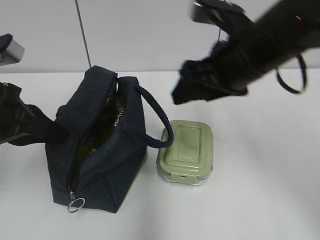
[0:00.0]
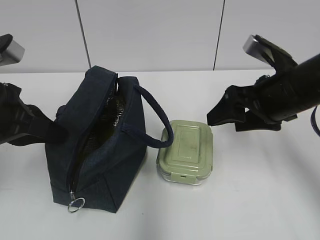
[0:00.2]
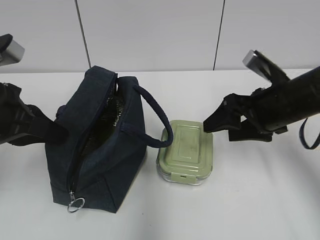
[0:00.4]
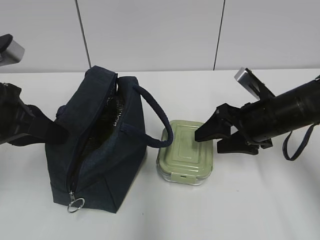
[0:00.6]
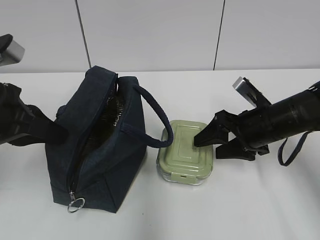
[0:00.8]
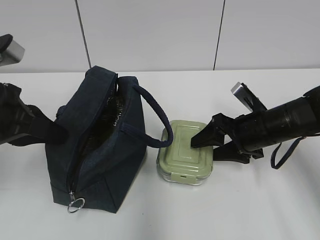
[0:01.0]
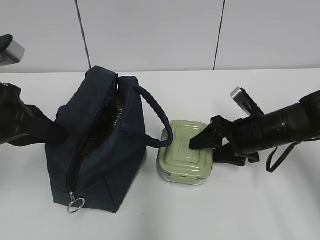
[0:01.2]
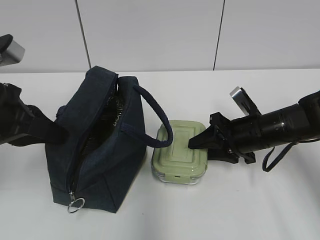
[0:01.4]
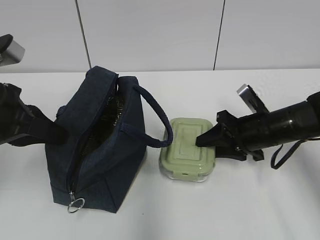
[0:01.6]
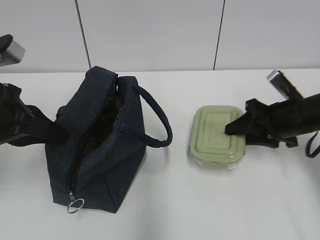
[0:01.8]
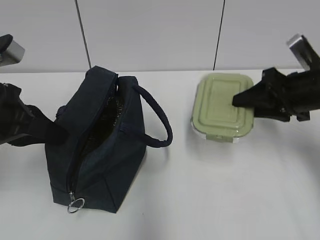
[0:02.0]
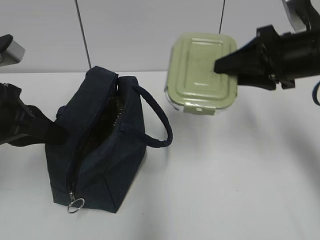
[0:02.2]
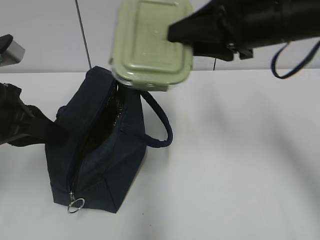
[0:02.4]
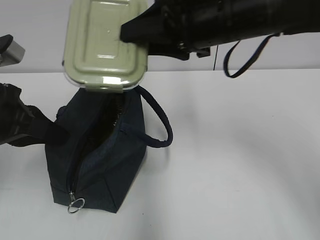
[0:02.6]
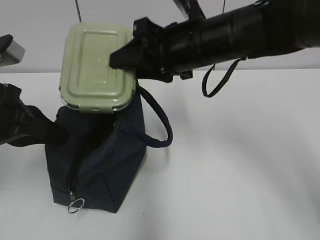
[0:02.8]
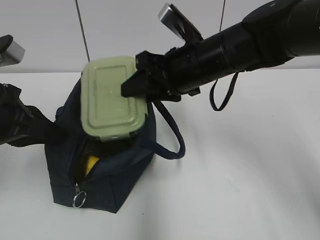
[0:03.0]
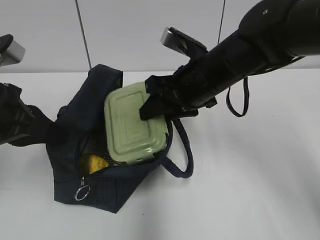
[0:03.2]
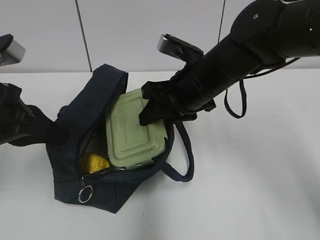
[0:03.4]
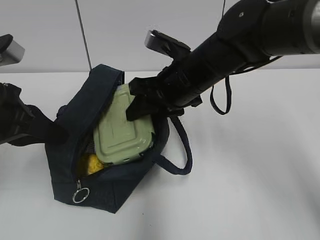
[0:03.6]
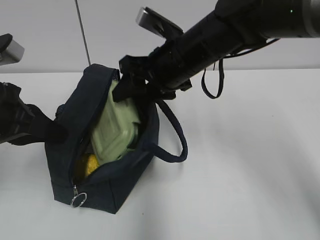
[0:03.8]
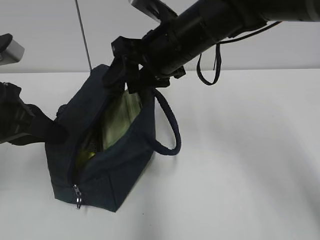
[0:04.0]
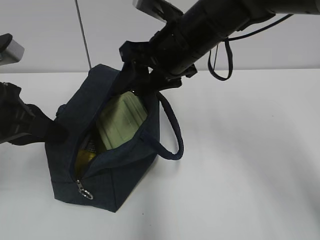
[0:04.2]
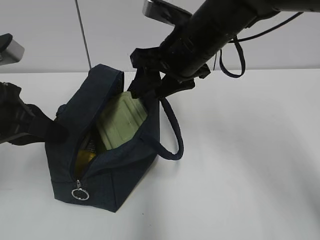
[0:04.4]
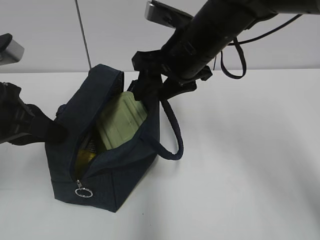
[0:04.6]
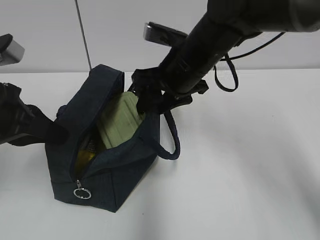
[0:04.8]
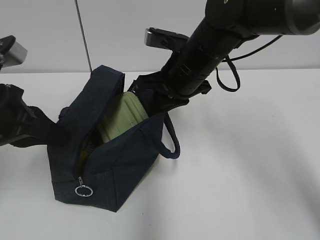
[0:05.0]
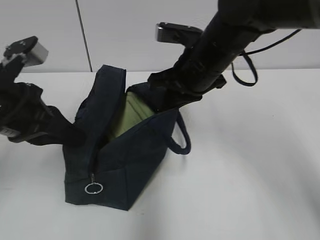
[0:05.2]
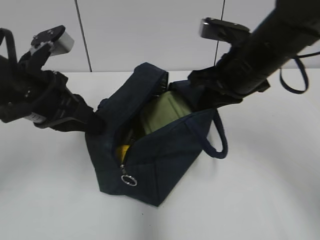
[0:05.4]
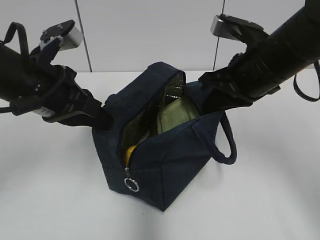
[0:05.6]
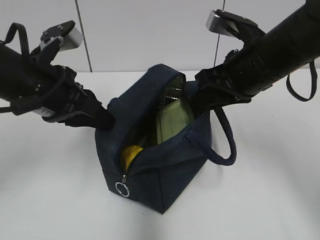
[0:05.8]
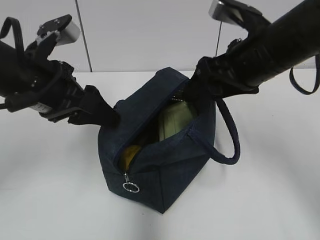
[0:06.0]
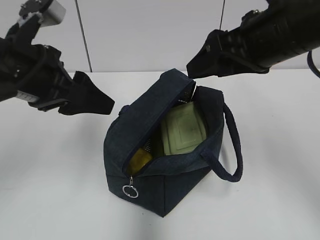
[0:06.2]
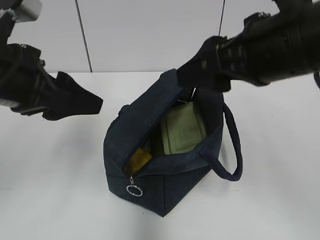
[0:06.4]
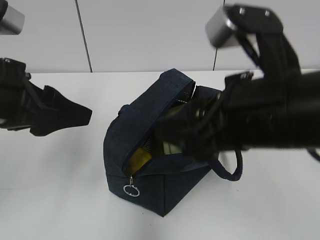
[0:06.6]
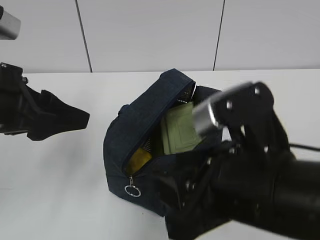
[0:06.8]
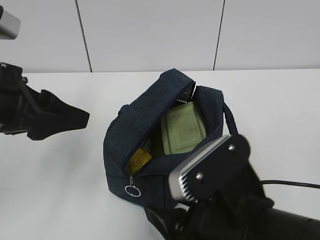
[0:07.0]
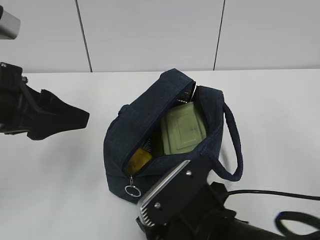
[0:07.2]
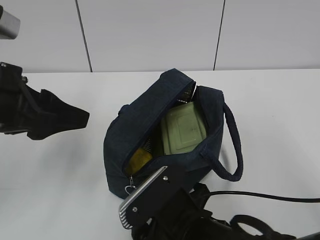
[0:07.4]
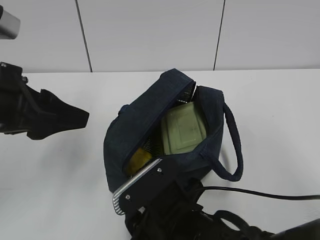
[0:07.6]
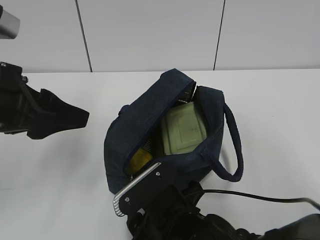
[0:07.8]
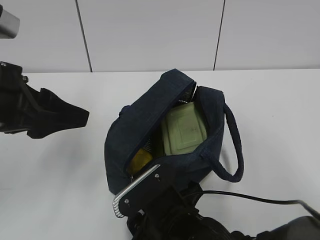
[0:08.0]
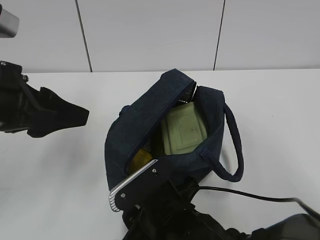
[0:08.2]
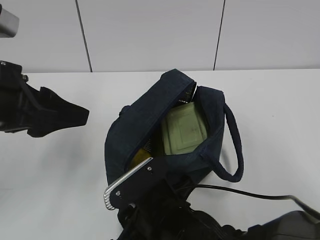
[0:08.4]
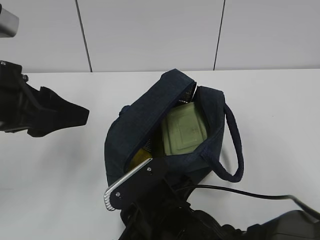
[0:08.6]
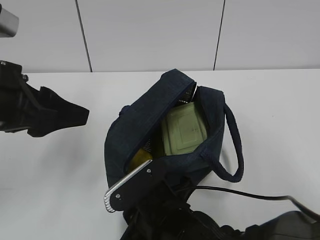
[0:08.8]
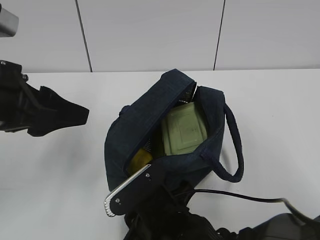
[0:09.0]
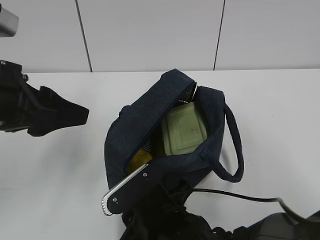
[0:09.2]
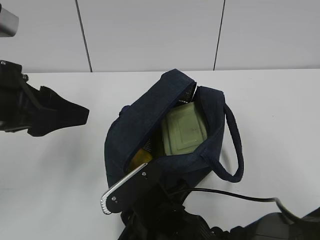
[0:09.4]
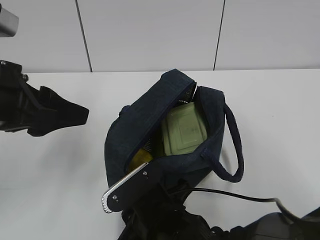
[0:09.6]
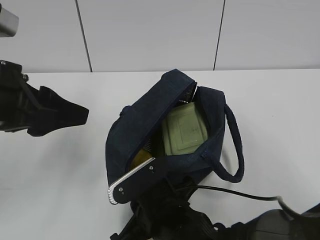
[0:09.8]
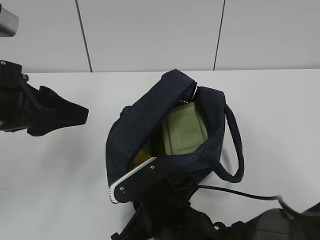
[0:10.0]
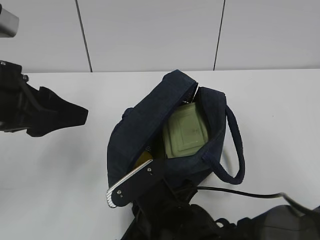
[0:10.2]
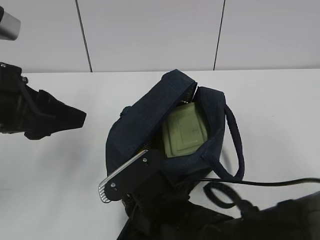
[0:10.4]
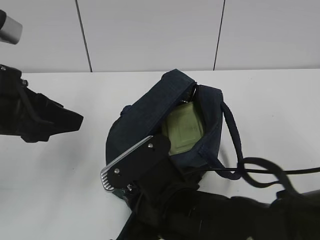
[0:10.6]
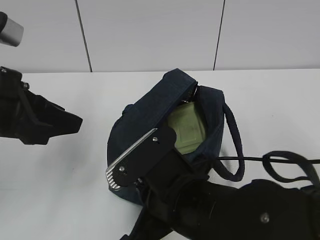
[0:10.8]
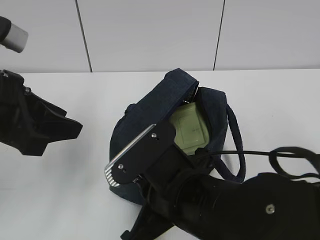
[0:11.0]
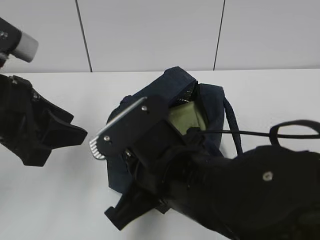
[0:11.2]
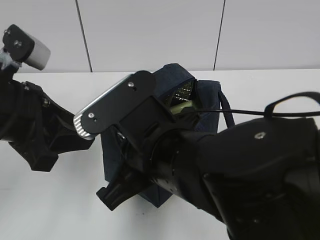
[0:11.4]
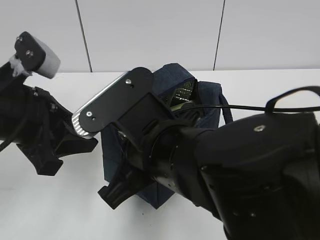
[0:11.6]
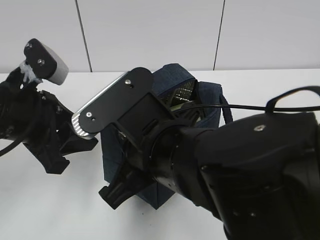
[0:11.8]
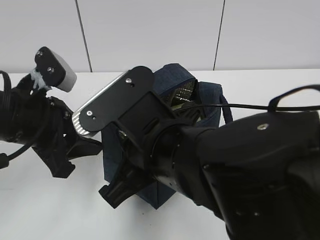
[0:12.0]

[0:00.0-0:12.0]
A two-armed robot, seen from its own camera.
Step, 0:00.0 to 0:01.6: Grab the lunch box with your right hand.
Step, 0:04.2 to 0:04.8: Grab the lunch bag with your right hand.
Step, 0:05.0 to 0:05.8: Move the lunch bag to the right.
0:00.0 to 0:01.6: The right gripper shifts roughly 15 cm downward and to the right, and closes its fingers.
0:01.6 to 0:03.0: The right gripper is displaced to the left and upward by some 20 cm.
0:04.4 to 0:06.0: The grippers both shift to the right by about 5 cm. The left gripper opens. The right gripper closes, then reopens.
0:06.0 to 0:07.6: The left gripper heads backward, covering some 5 cm. Meanwhile the right gripper goes approximately 25 cm downward, backward and to the left.
0:07.6 to 0:09.0: There are only small adjustments of the grippers.
0:09.0 to 0:10.4: The right gripper closes its fingers.
0:10.4 to 0:12.0: The right gripper shifts roughly 10 cm upward, while the left gripper is displaced downward by about 5 cm.

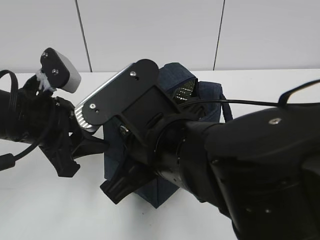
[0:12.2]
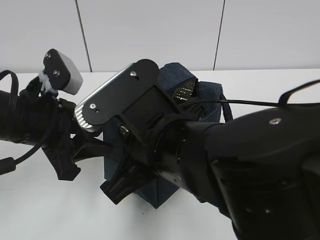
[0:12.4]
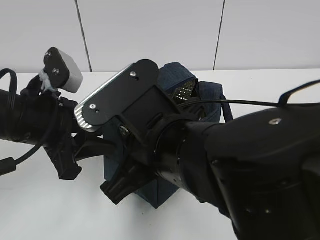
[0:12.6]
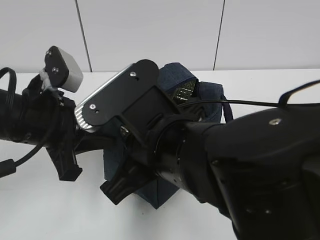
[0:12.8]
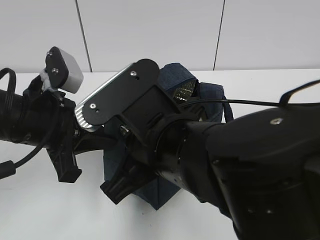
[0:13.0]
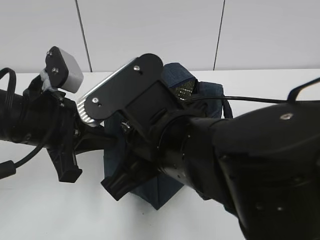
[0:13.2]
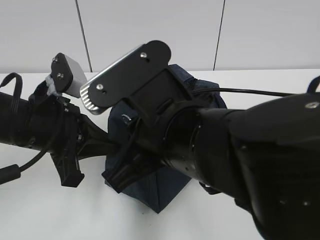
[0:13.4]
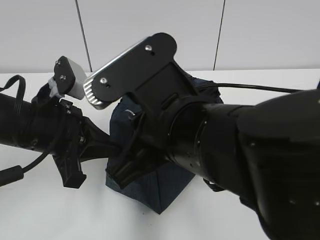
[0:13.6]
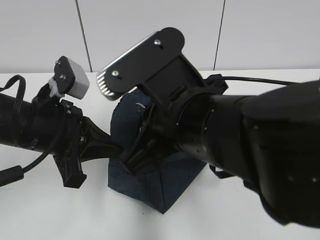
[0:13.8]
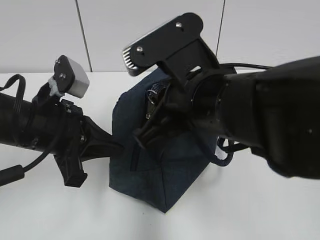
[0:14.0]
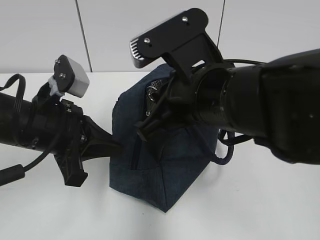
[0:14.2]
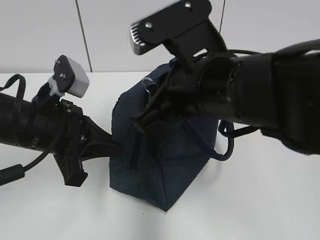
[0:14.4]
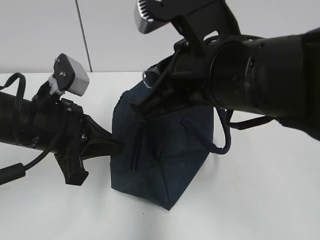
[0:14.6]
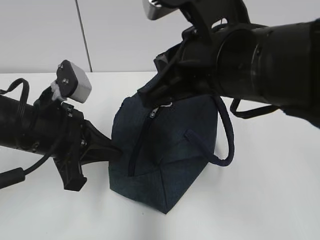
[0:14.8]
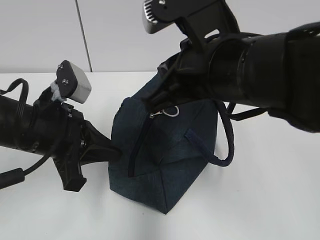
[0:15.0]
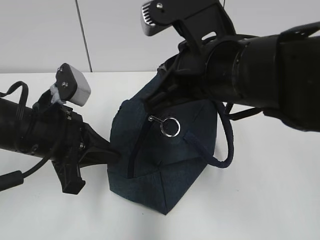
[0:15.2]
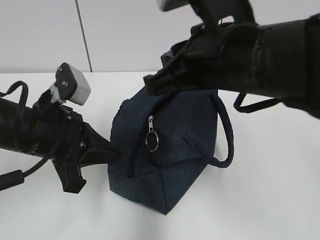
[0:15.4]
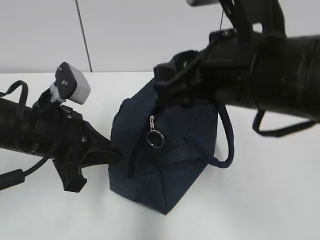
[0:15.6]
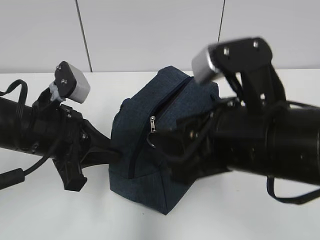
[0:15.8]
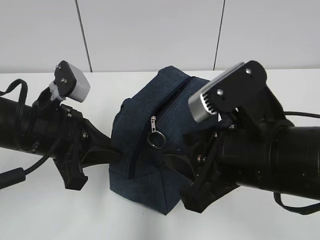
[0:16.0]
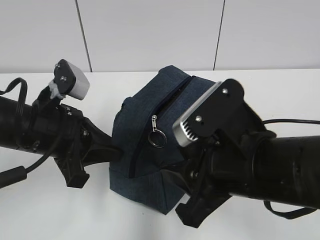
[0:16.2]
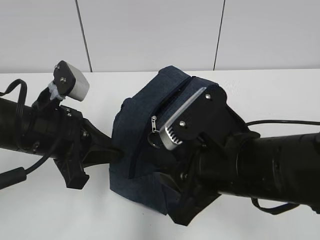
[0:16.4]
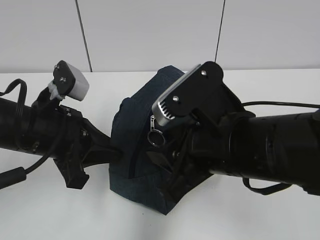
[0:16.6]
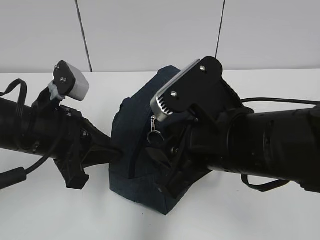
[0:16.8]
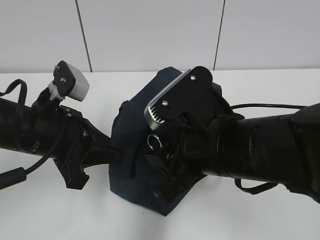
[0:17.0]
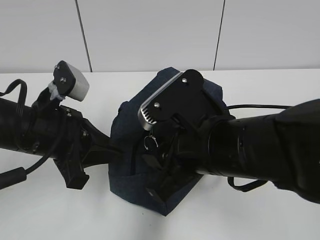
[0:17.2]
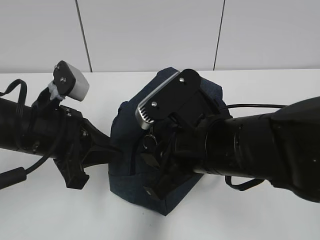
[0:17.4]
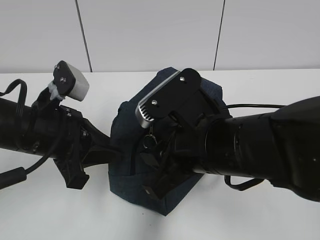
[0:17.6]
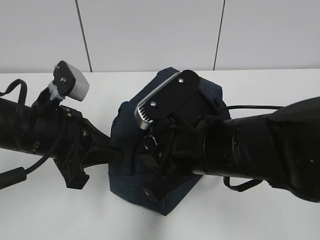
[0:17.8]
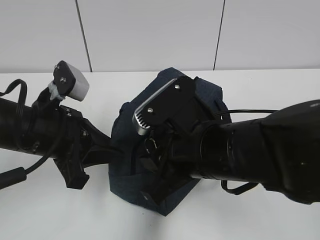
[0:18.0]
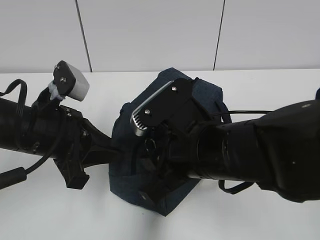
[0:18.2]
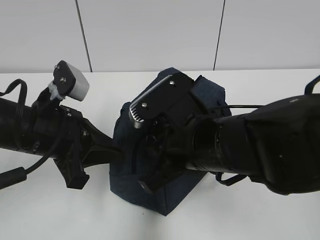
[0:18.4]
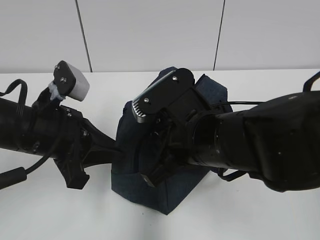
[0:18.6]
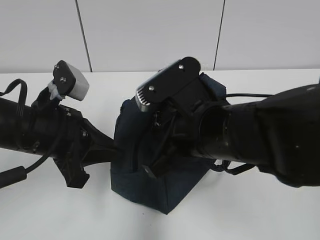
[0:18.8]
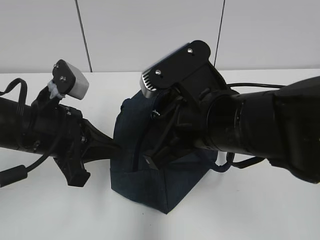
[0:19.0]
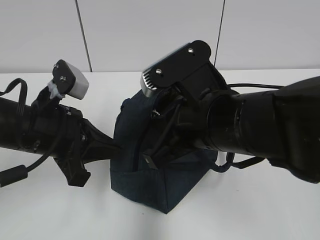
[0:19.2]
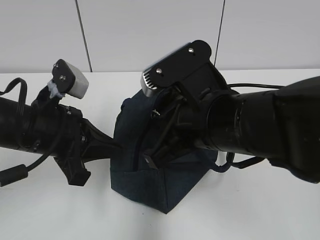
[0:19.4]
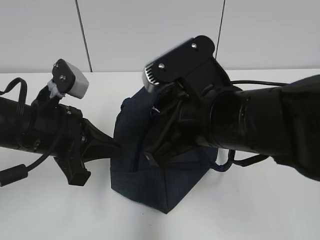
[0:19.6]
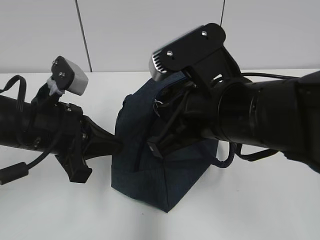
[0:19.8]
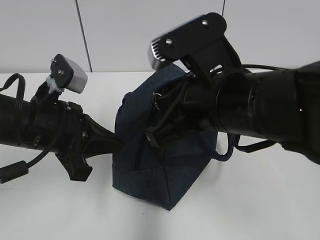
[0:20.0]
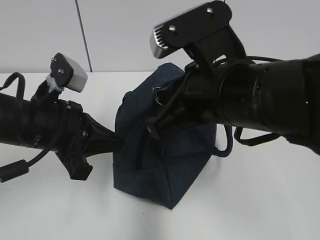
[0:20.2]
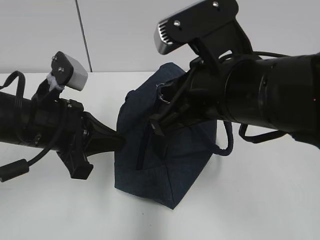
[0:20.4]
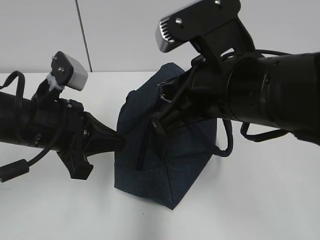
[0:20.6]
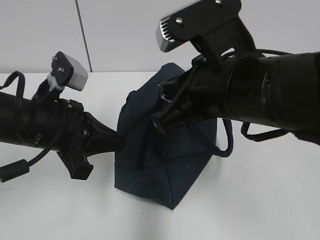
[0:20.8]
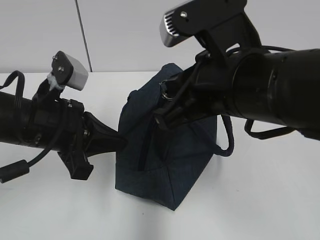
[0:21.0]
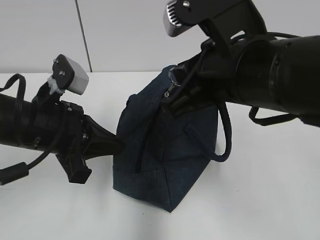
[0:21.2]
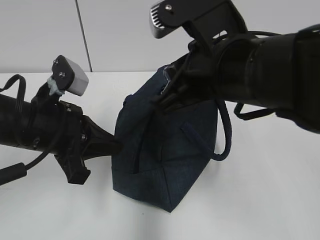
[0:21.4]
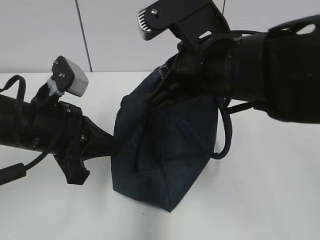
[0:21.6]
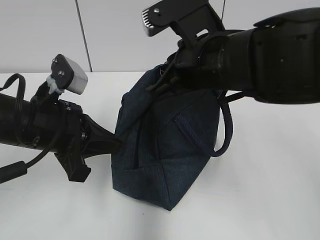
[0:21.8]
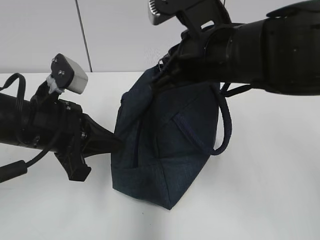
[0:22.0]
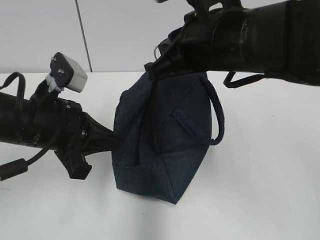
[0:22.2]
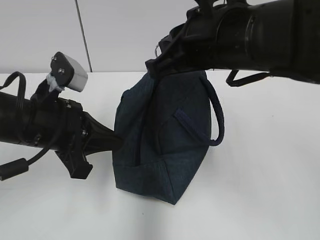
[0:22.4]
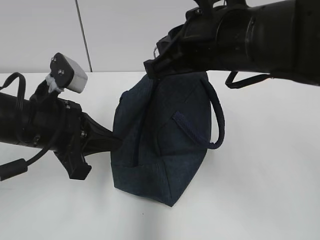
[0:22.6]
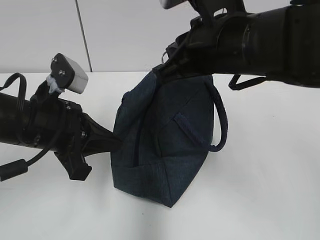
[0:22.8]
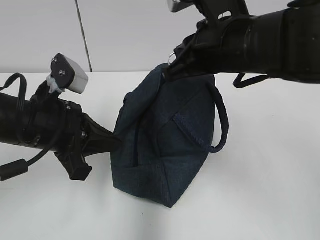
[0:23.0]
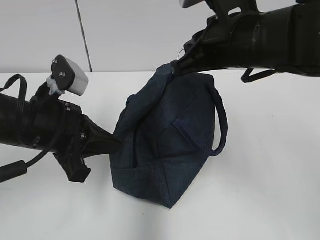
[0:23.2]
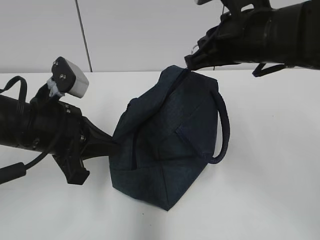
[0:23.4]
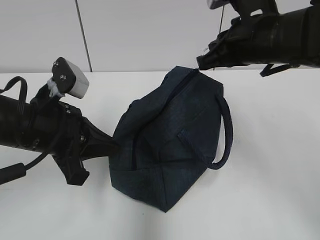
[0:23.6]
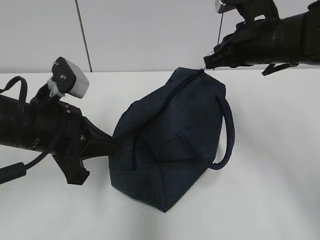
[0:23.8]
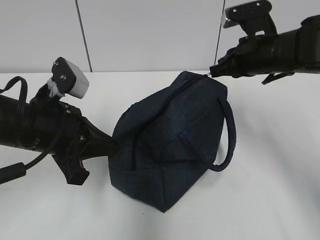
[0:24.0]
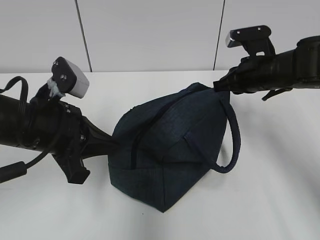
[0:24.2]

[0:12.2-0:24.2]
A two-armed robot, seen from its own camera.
0:12.2 to 0:13.8: The left gripper closes.
0:13.8 to 0:15.2: The right gripper shifts by approximately 5 cm.
0:15.2 to 0:16.6: The right gripper goes some 5 cm downward, and opens its fingers.
0:16.6 to 0:18.2: The grippers stay close to where they were, moving slightly.
0:18.2 to 0:19.8: The right gripper moves upward, some 5 cm, and closes up.
0:22.6 to 0:24.2: The right gripper is displaced forward, downward and to the right by about 25 cm.
